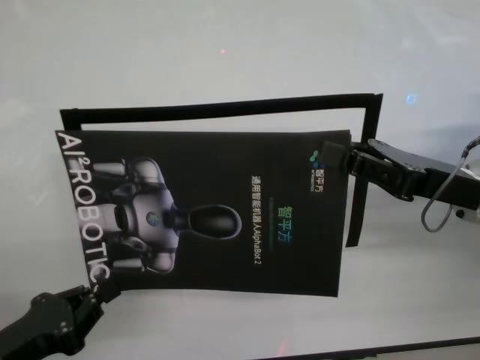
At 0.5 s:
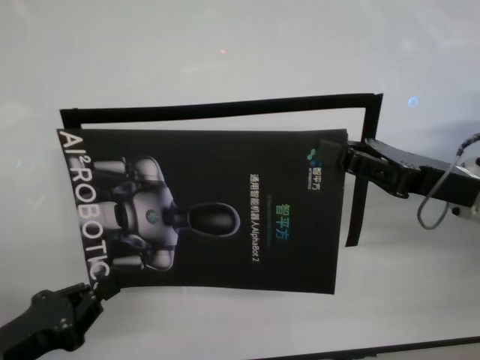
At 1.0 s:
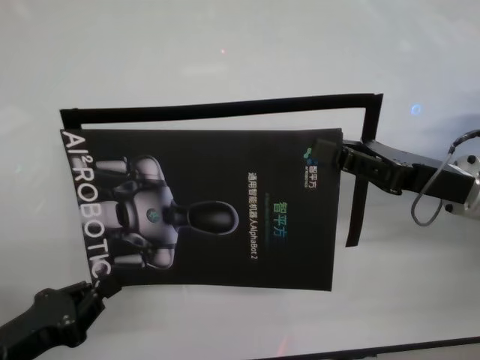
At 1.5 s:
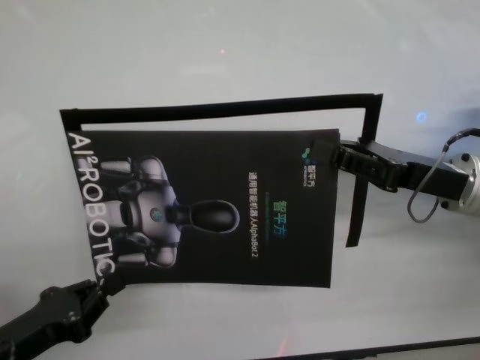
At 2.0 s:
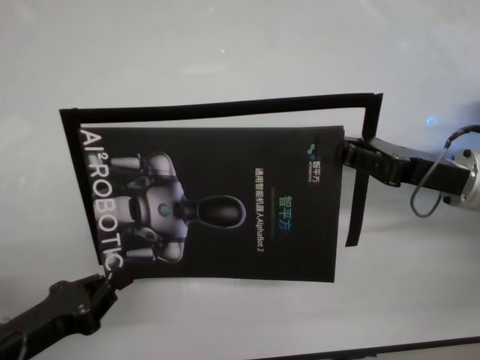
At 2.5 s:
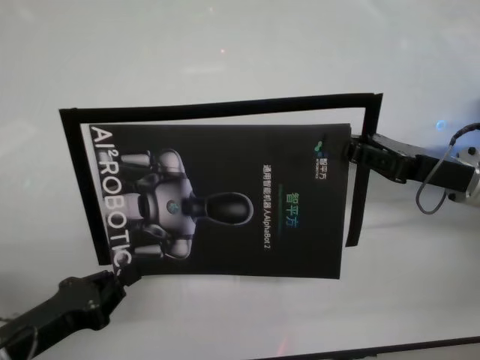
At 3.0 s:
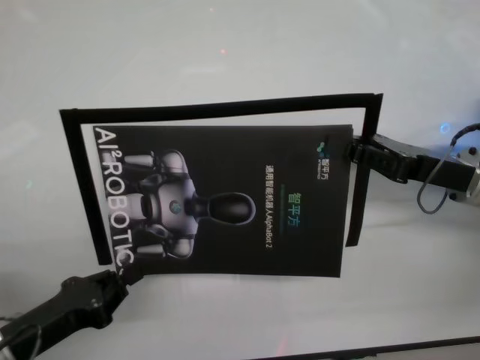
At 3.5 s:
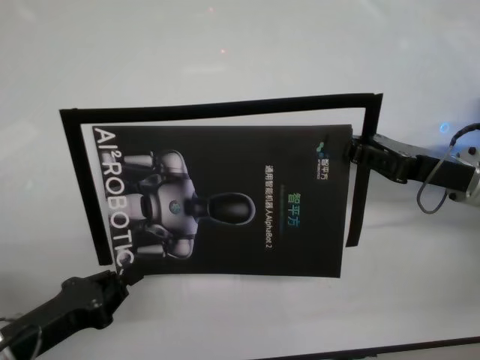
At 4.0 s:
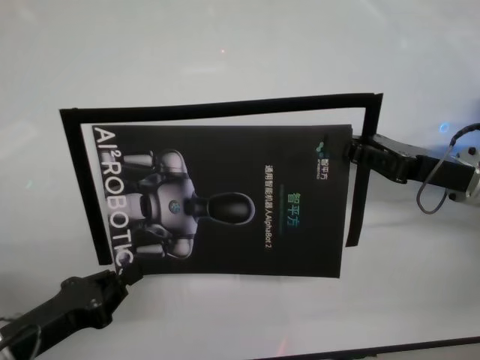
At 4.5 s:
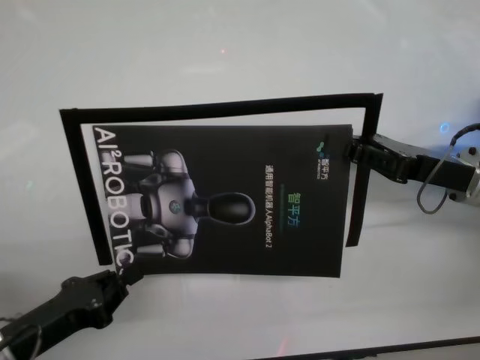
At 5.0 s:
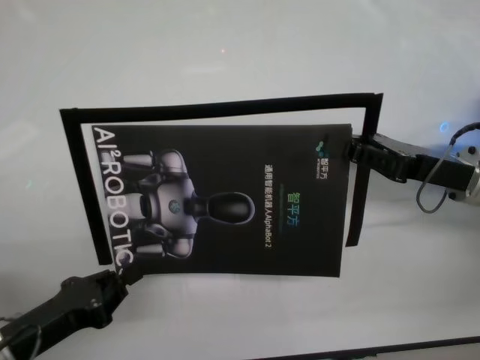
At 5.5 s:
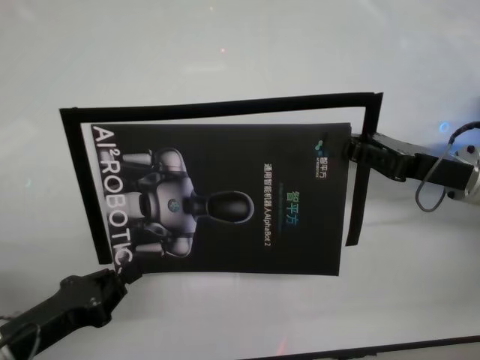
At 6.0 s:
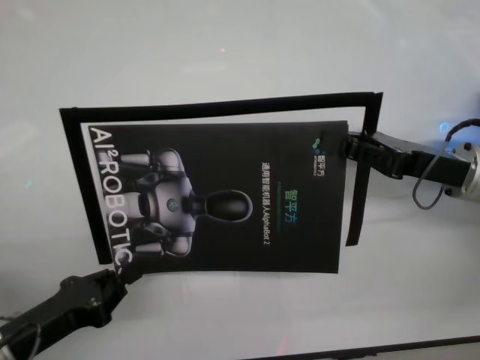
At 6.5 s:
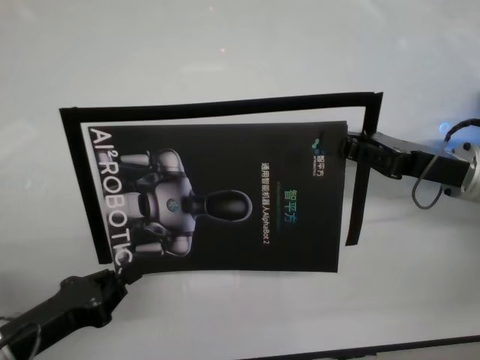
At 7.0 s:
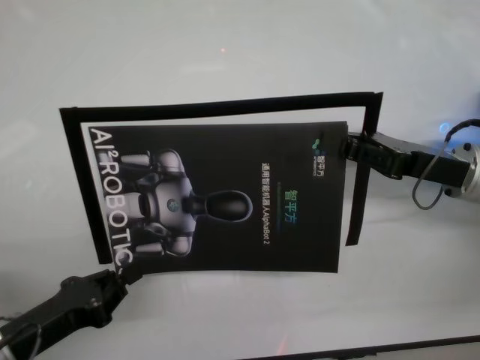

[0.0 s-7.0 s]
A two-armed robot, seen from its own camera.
Task of the whole recording: stick the poster on the table by hand.
Step, 0.0 to 2.5 s: Stick the advertisement in the top-right corner area with both grippers.
